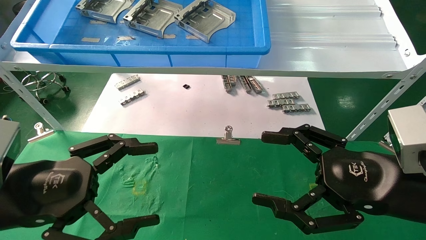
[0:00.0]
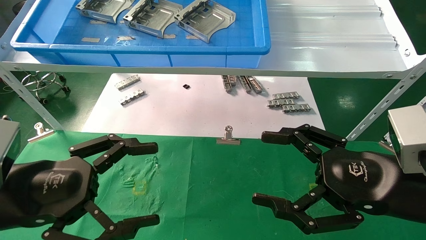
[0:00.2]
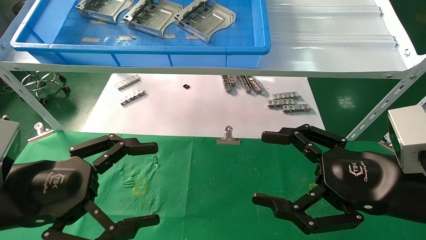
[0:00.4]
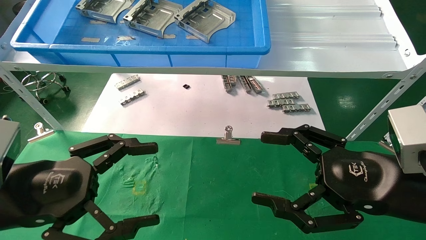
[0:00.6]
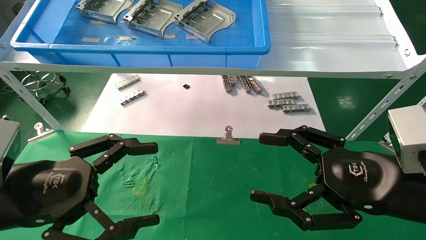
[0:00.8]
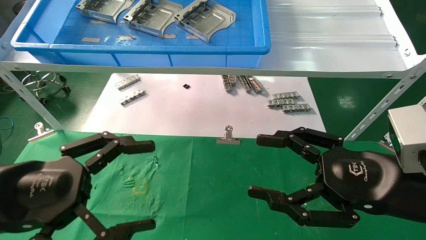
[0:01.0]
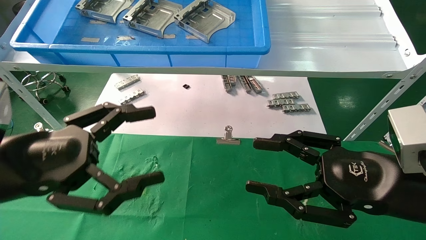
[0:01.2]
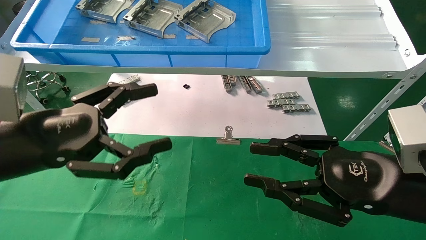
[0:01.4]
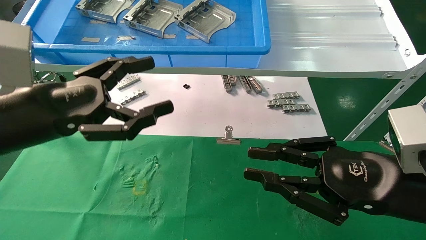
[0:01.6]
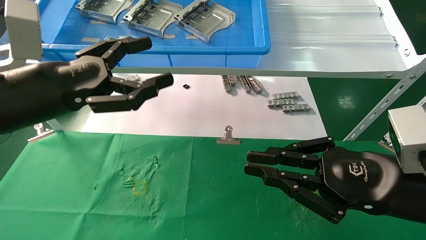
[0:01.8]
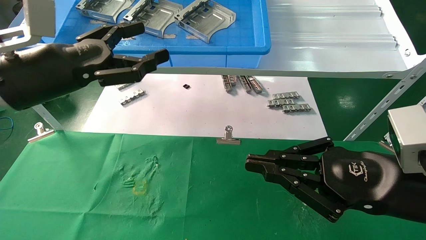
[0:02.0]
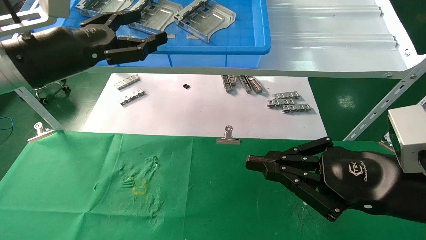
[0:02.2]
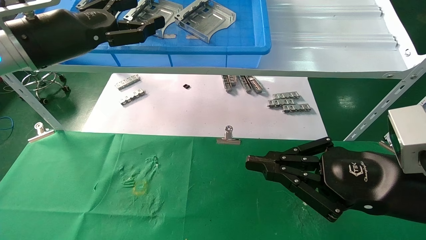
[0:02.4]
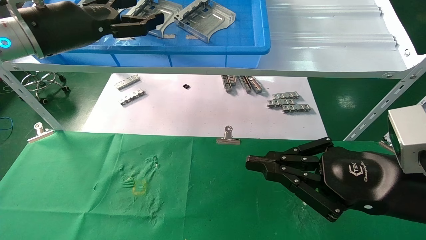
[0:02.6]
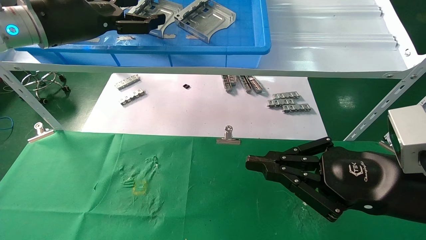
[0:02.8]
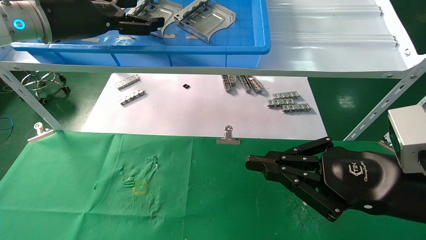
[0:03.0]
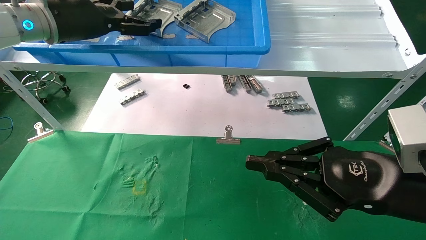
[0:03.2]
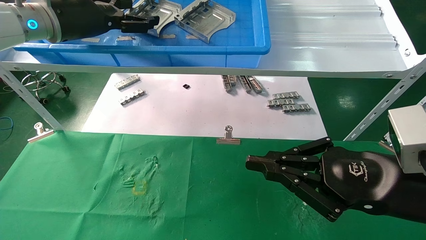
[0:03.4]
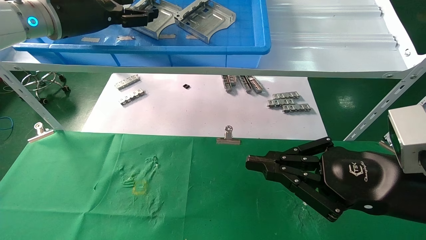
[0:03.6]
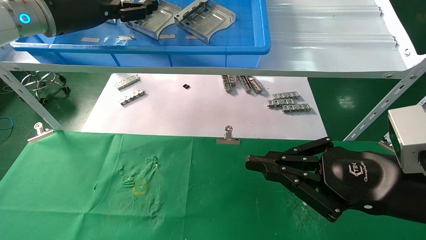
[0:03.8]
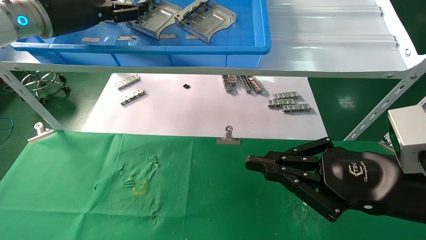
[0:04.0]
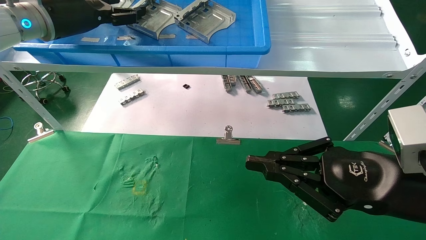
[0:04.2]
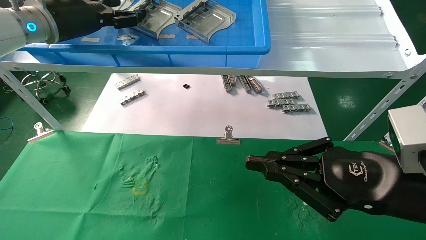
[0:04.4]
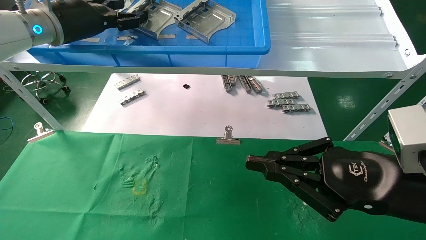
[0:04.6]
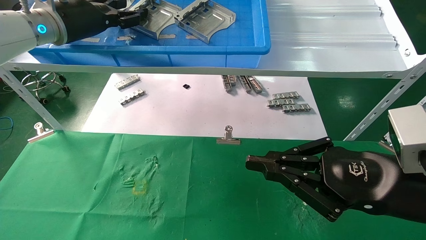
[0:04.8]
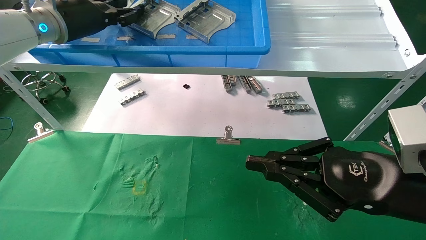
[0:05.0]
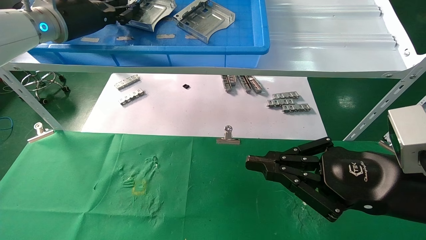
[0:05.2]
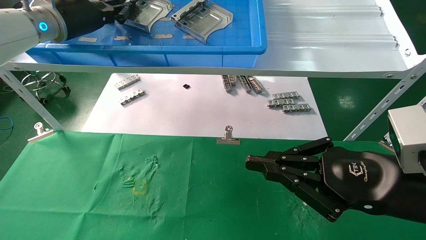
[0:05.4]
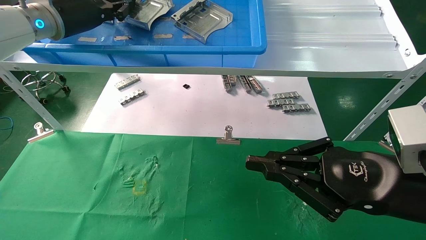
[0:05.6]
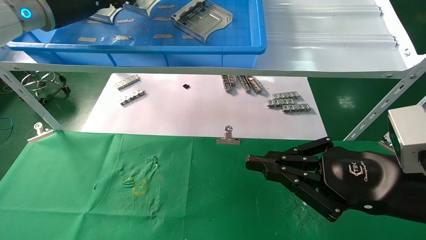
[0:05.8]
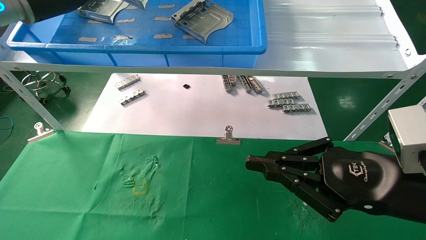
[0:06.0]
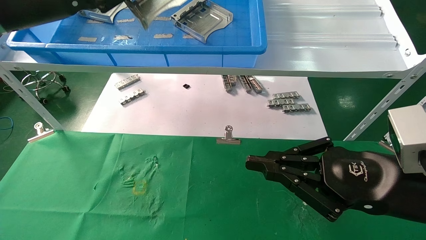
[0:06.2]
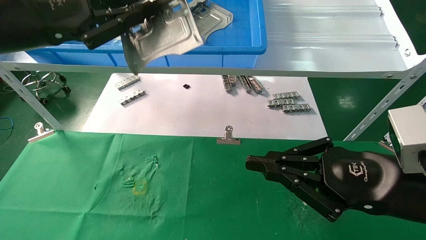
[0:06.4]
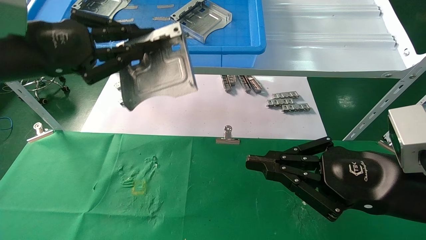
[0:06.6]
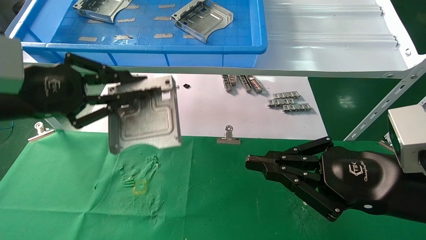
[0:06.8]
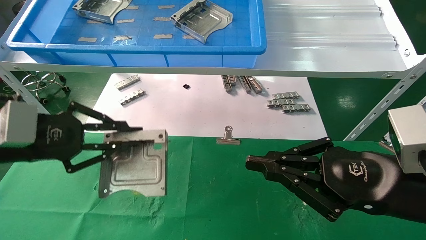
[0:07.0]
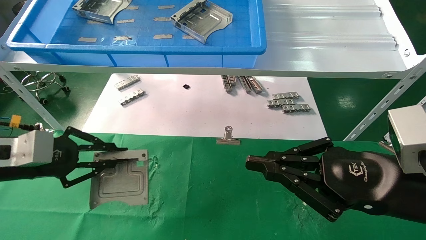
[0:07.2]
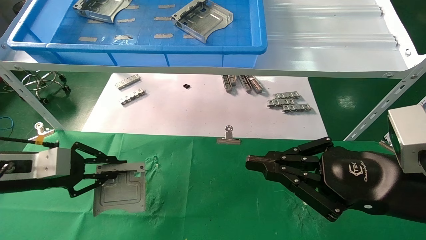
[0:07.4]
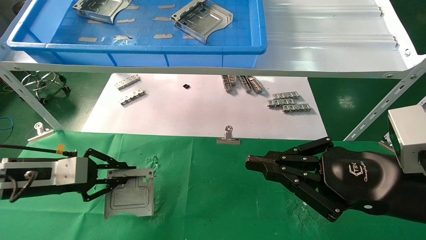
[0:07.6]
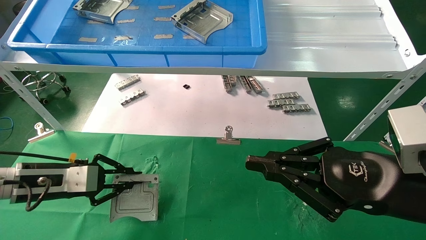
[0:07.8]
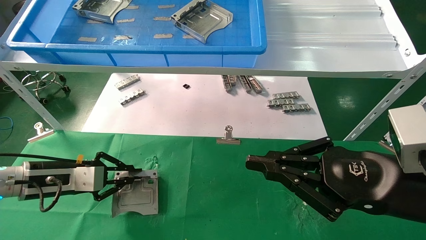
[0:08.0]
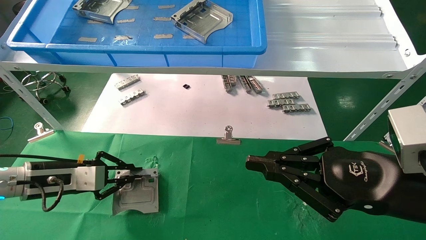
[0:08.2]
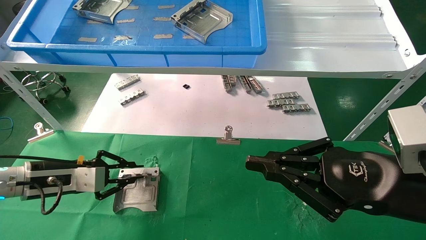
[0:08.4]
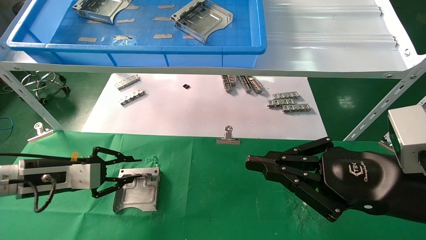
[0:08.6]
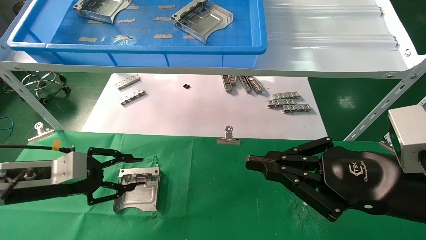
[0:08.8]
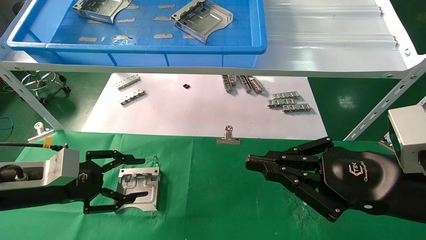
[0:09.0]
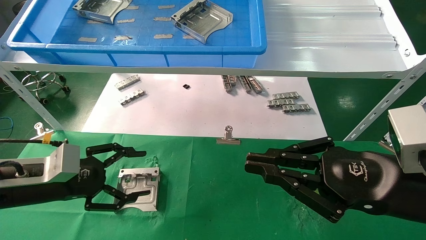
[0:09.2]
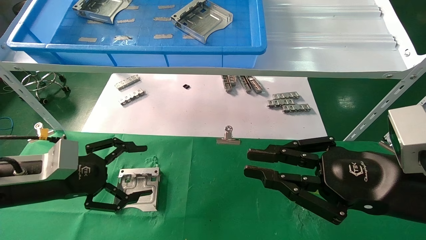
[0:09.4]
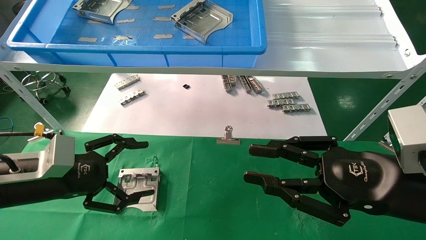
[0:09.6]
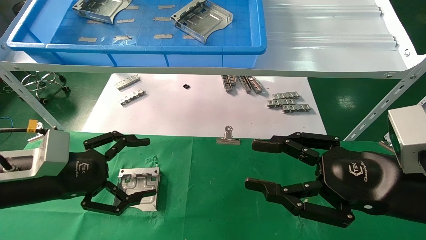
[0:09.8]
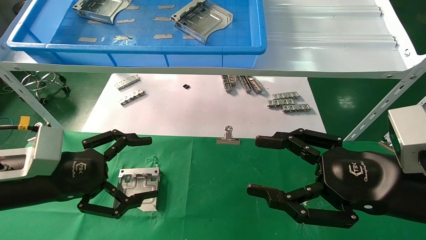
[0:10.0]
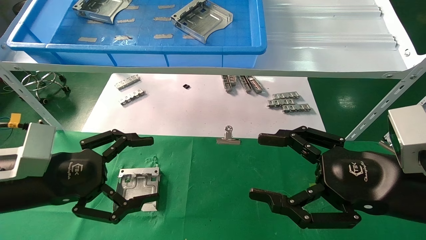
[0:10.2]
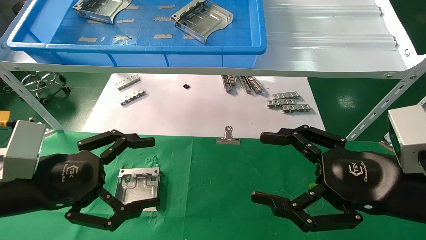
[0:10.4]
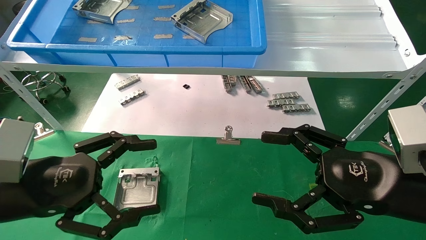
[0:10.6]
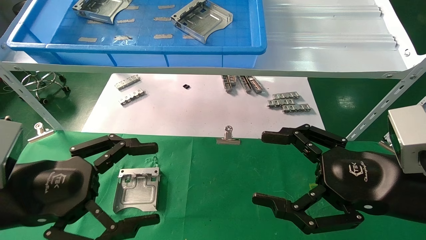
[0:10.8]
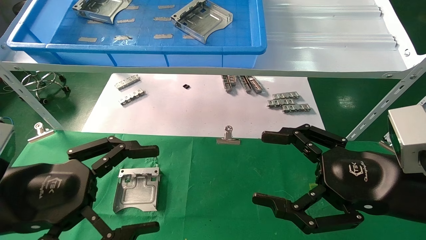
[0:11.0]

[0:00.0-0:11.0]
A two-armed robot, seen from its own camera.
Task of the whole recording: use the mechanical arm to pick up the parts and place them on the table.
Step, 0:01.2 to 0:05.4: Pick up the hard drive bracket from the feeding area.
Step, 0:05.6 to 0:08.4: Place the hard drive bracket into the box.
0:00.0 to 0:01.6: The right gripper closes its fingers; the left gripper moves upward, approximately 5 cm.
0:01.6 to 0:03.2: The right gripper closes. The left gripper travels forward and upward by about 20 cm.
0:03.2 to 0:04.8: The left gripper closes its fingers.
0:04.8 to 0:06.2: The left gripper is displaced backward by some 10 cm, and closes.
0:06.2 to 0:07.8: The left gripper heads downward, covering roughly 30 cm.
0:07.8 to 0:09.4: The left gripper shifts by approximately 5 cm, and opens up.
0:09.4 to 0:11.0: The left gripper shifts some 10 cm backward. The right gripper opens.

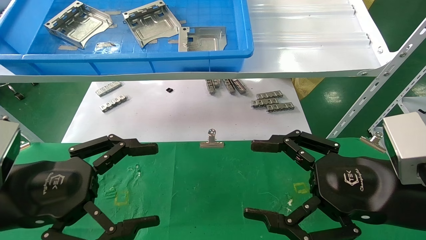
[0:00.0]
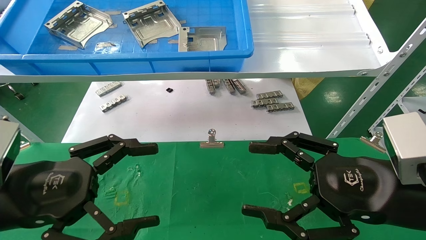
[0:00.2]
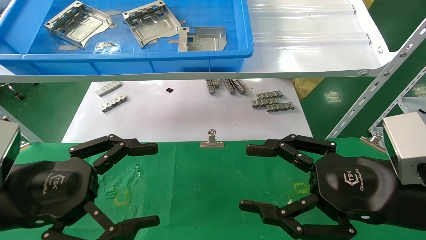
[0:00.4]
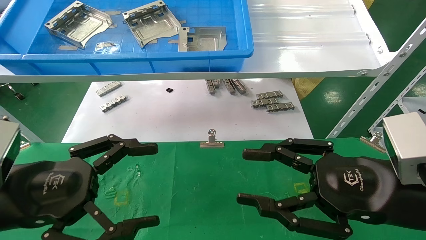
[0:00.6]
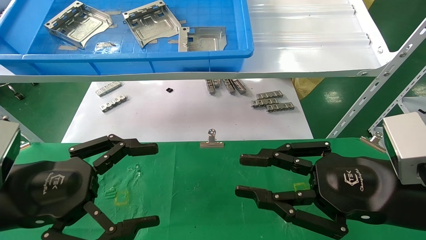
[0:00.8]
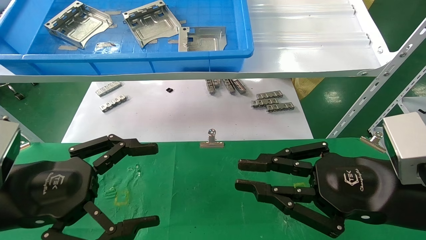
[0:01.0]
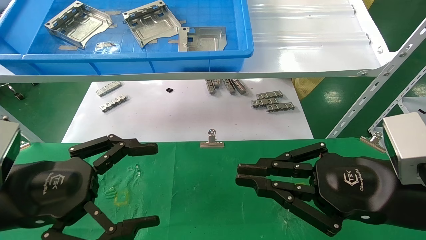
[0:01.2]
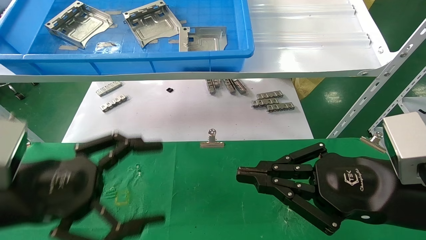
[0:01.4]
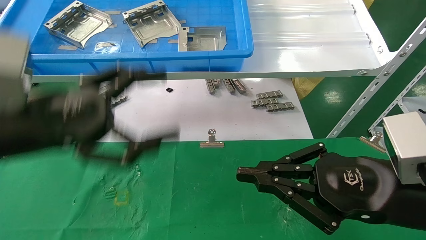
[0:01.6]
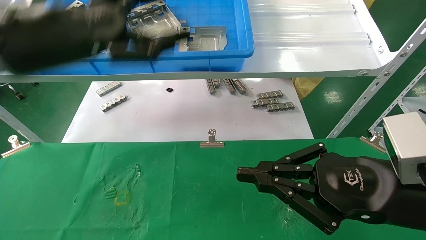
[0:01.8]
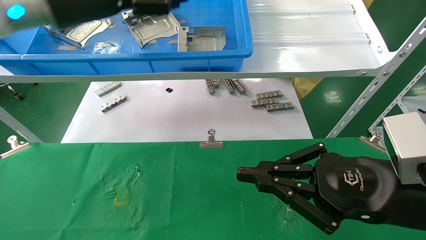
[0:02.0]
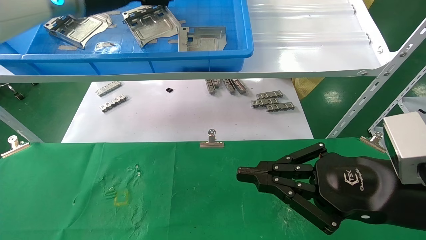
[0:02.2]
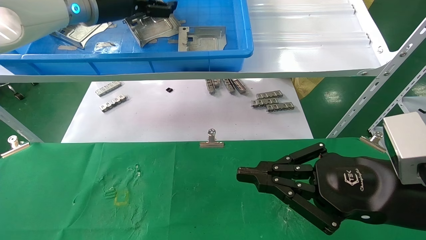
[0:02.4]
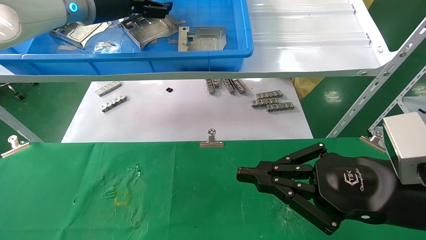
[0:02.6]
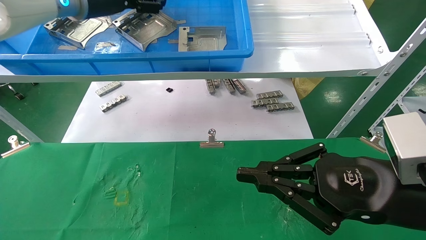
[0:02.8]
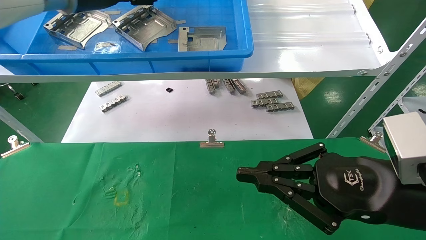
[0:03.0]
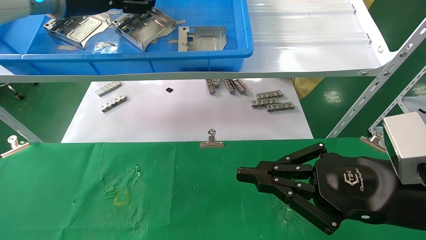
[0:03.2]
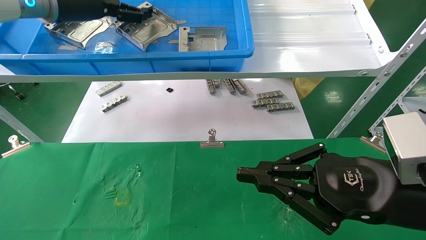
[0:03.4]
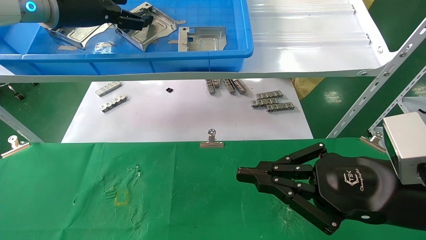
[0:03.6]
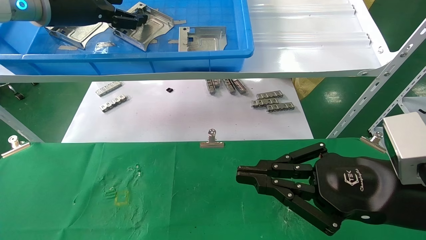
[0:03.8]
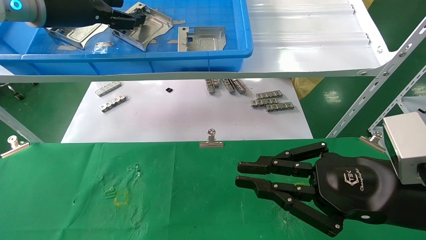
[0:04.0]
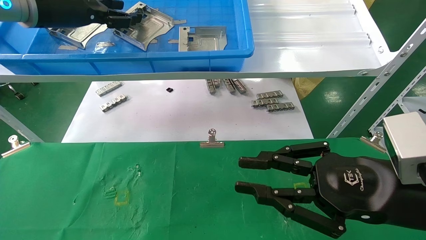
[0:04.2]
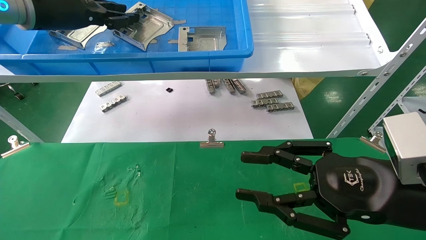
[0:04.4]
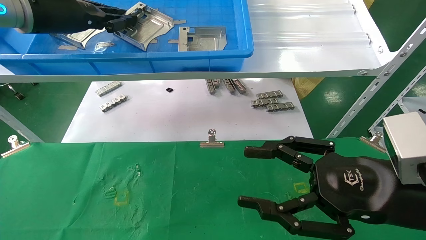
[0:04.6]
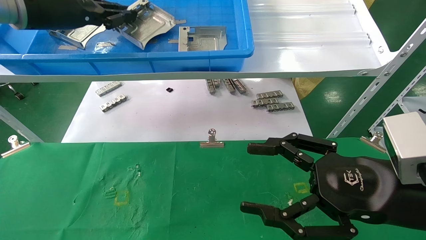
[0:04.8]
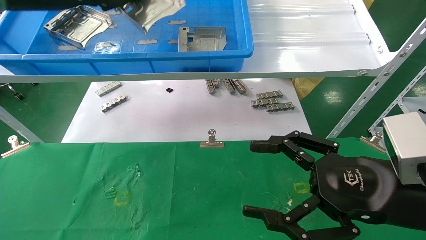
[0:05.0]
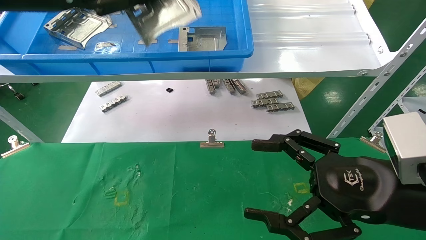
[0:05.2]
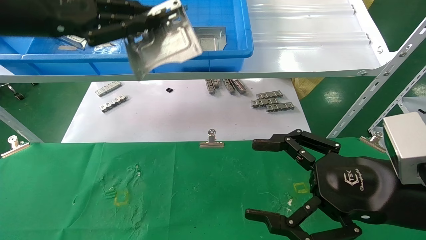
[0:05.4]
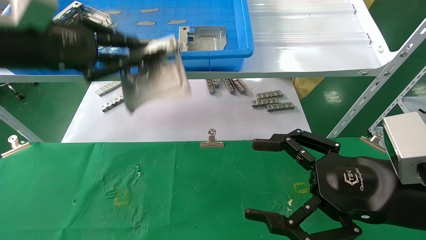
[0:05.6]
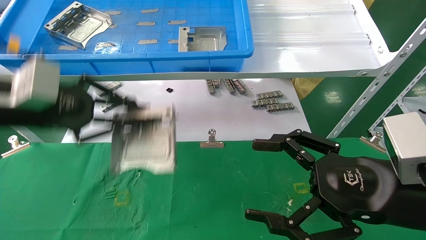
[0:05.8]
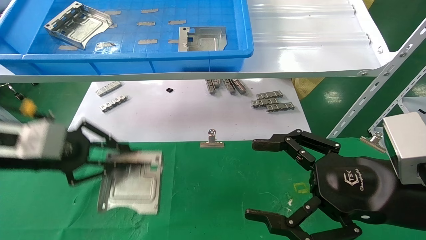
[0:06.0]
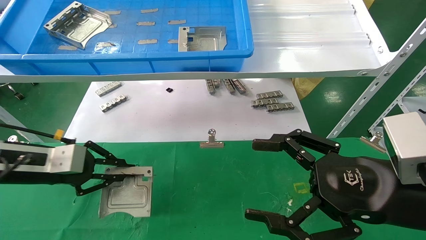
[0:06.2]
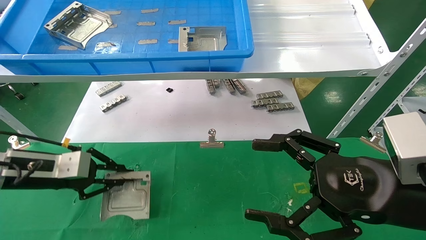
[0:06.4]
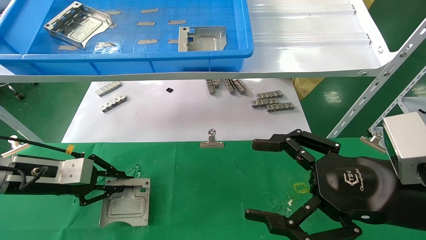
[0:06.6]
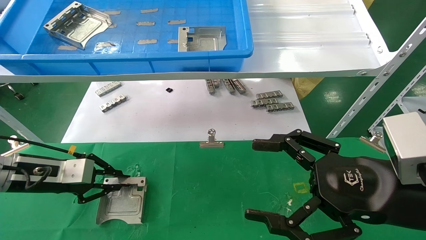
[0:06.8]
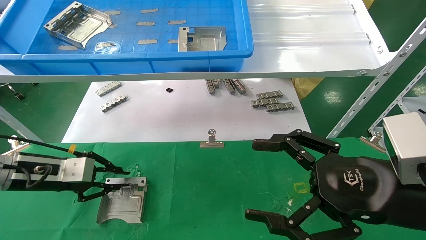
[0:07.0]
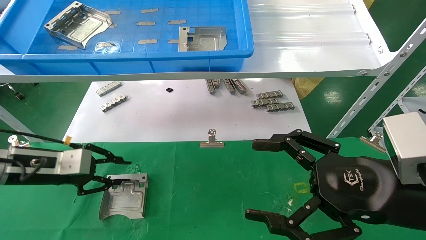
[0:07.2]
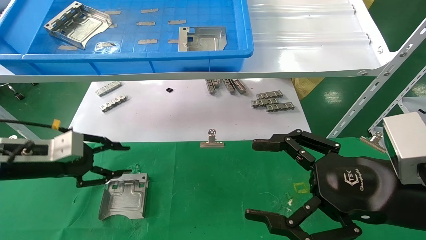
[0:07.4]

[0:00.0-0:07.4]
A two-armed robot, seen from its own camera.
Task of the whole recording: use the mechanical arm to pick up the parts and place them on the table.
Step, 0:01.6 to 0:04.6: Pick up the hard drive bracket from the feeding area.
Step, 0:04.8 to 0:07.2: Place the hard drive bracket into the box.
0:00.0 to 0:01.4: The right gripper closes its fingers.
0:01.4 to 0:03.0: The left gripper moves upward and forward, about 30 cm.
0:03.0 to 0:04.4: The left gripper goes approximately 5 cm to the left, and closes up.
0:04.4 to 0:06.0: The right gripper opens; the left gripper moves downward and backward, roughly 20 cm, and closes up.
0:06.0 to 0:07.4: The left gripper shifts approximately 5 cm downward.
